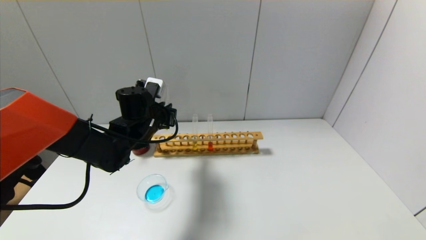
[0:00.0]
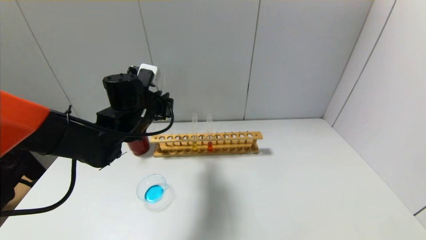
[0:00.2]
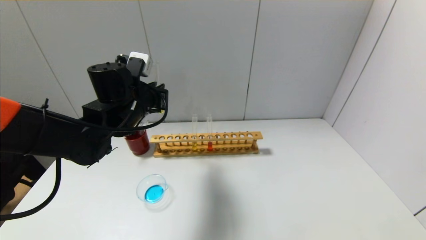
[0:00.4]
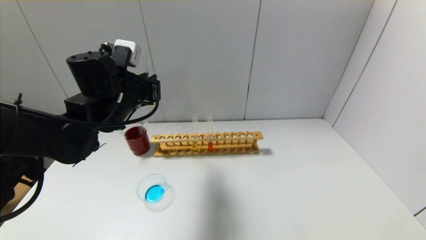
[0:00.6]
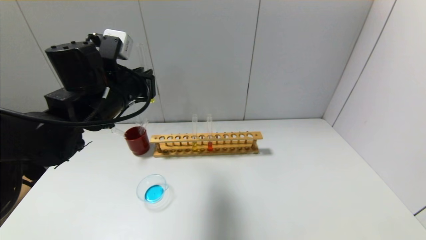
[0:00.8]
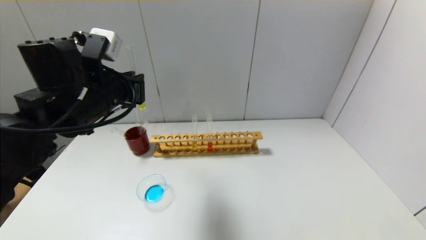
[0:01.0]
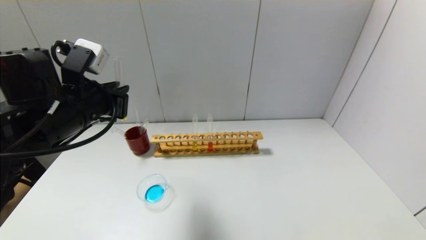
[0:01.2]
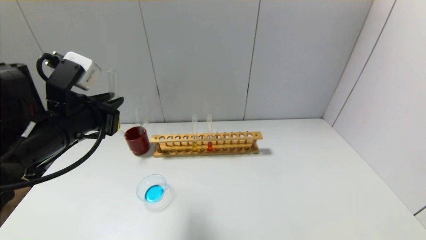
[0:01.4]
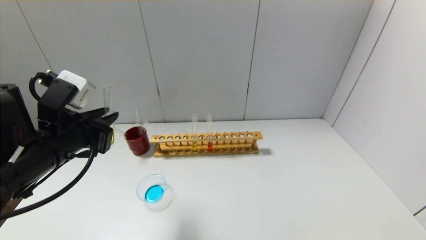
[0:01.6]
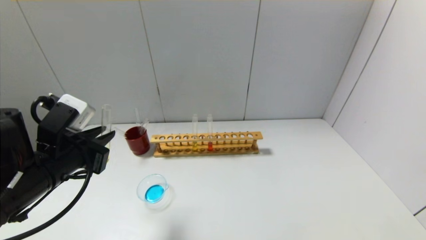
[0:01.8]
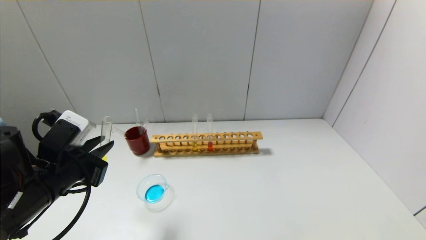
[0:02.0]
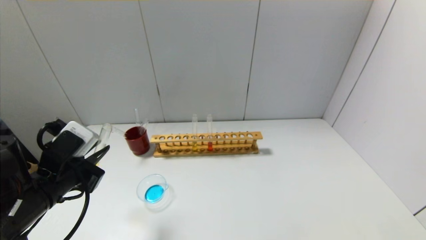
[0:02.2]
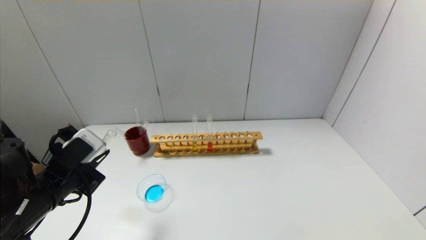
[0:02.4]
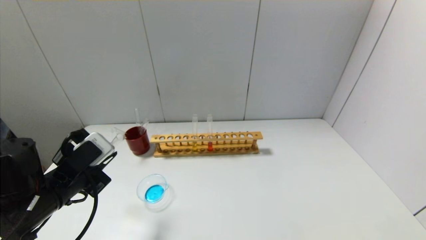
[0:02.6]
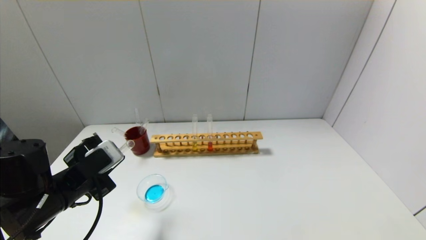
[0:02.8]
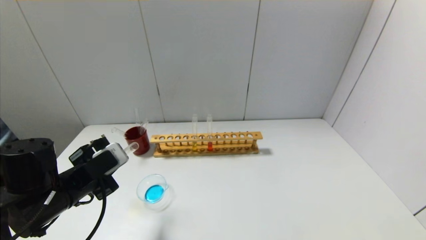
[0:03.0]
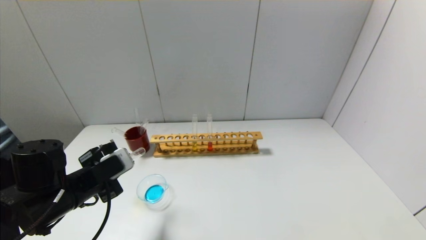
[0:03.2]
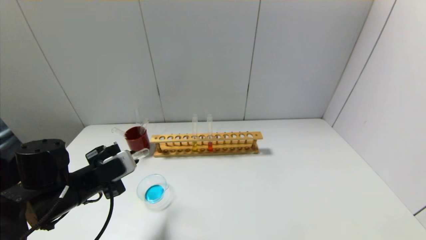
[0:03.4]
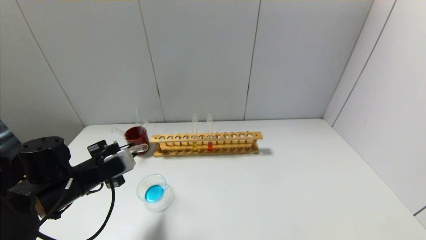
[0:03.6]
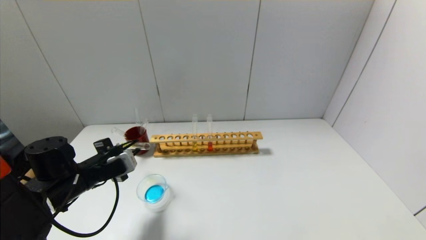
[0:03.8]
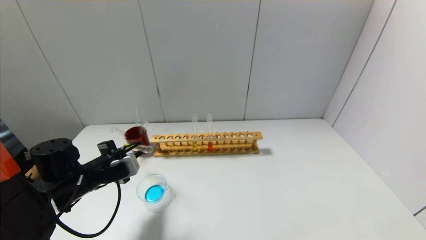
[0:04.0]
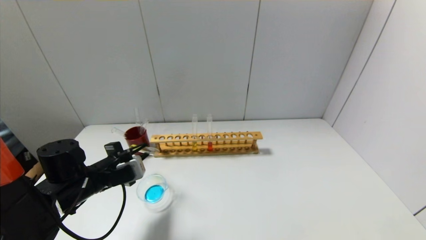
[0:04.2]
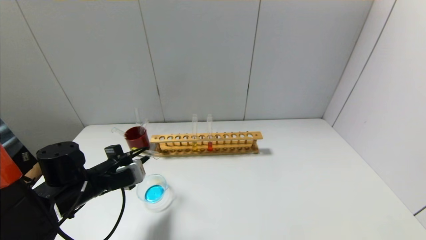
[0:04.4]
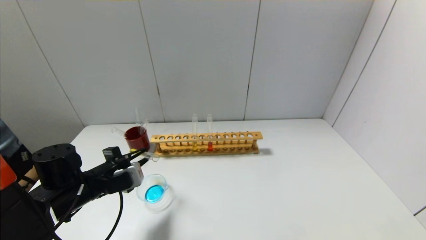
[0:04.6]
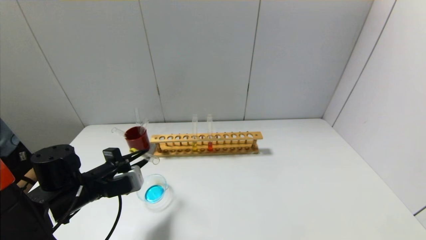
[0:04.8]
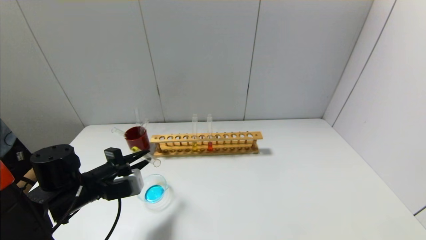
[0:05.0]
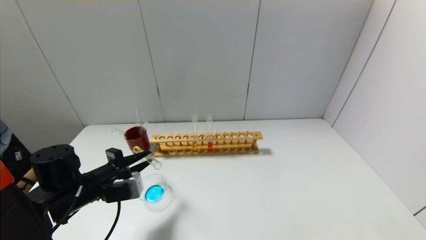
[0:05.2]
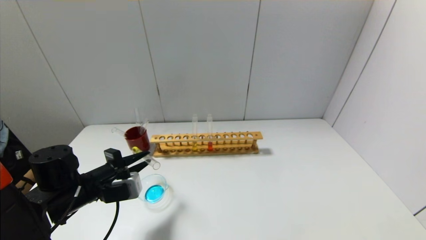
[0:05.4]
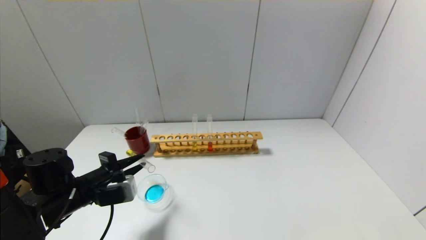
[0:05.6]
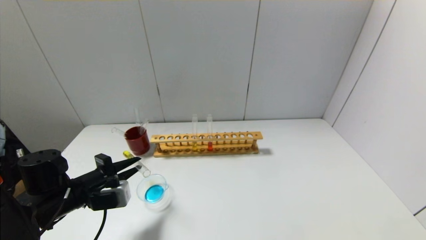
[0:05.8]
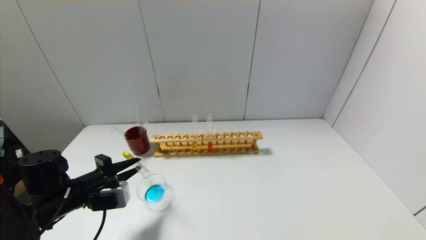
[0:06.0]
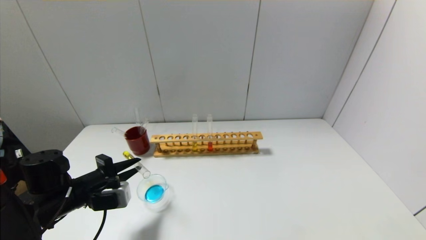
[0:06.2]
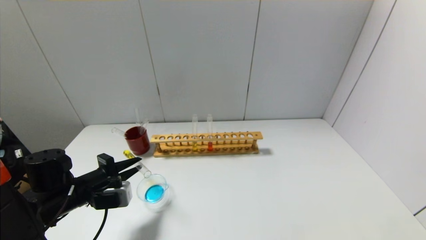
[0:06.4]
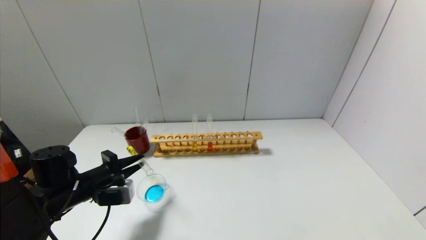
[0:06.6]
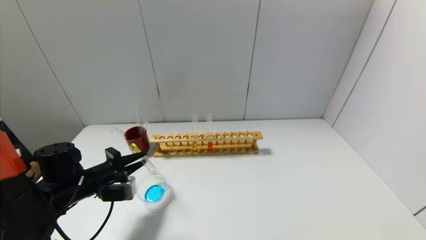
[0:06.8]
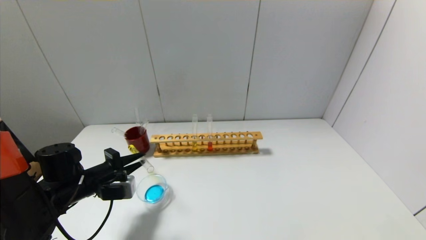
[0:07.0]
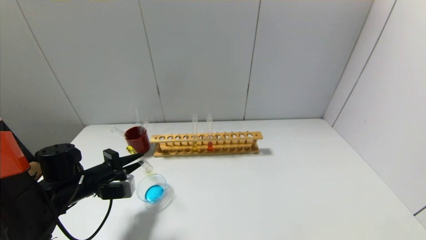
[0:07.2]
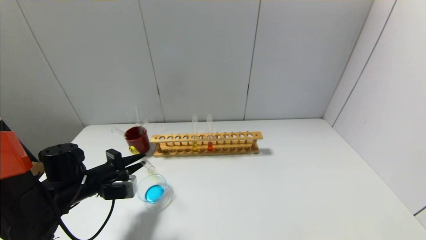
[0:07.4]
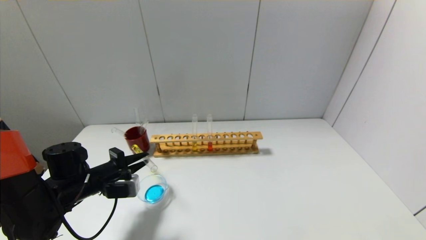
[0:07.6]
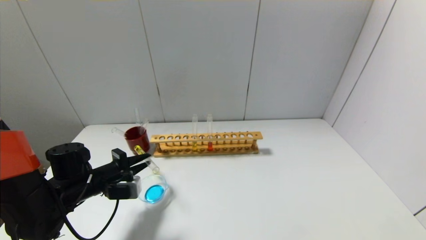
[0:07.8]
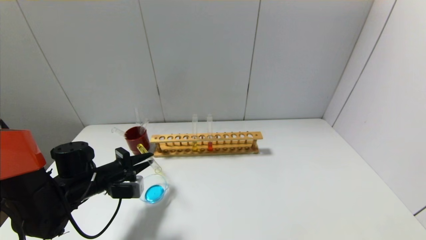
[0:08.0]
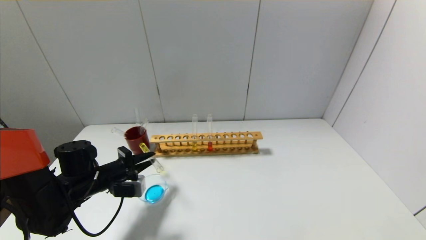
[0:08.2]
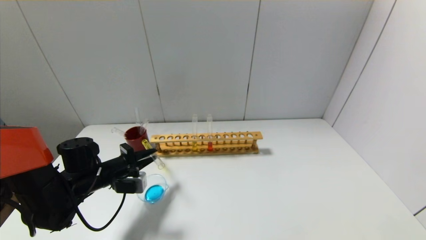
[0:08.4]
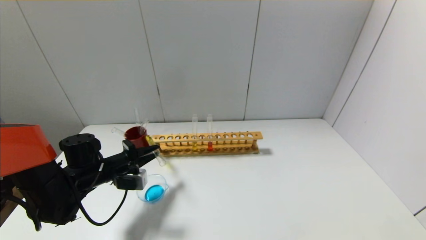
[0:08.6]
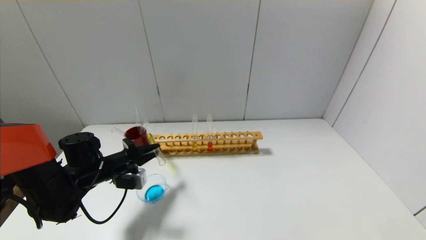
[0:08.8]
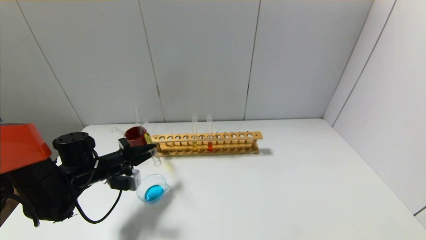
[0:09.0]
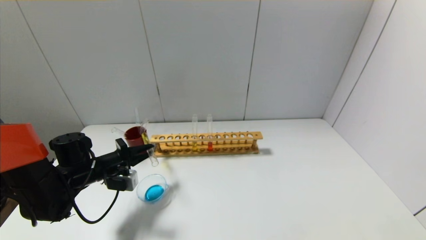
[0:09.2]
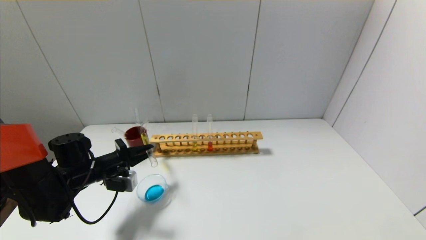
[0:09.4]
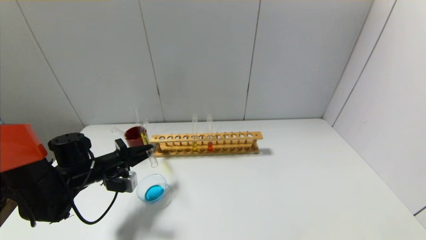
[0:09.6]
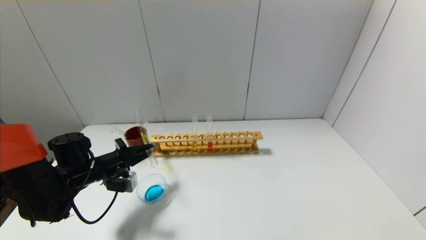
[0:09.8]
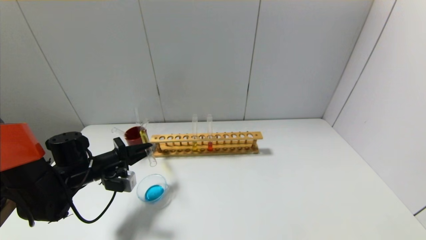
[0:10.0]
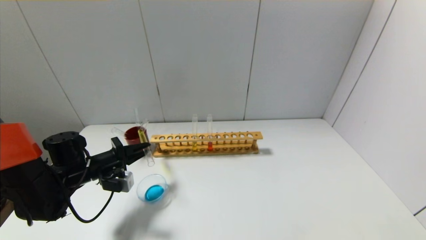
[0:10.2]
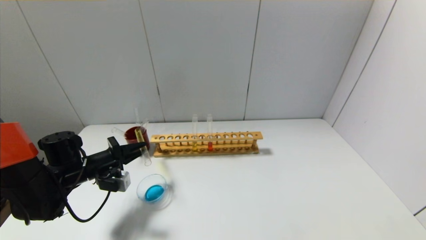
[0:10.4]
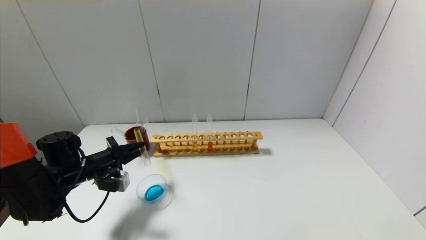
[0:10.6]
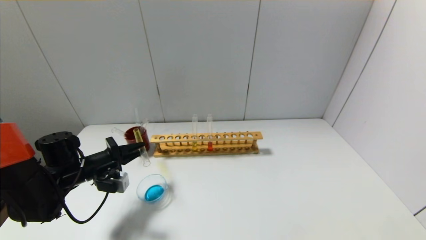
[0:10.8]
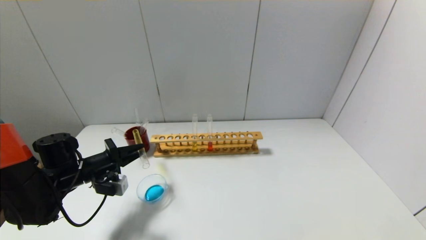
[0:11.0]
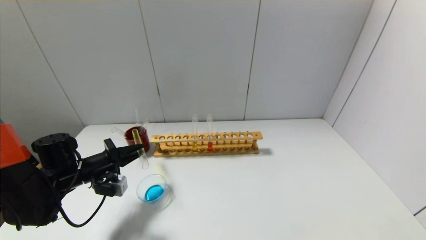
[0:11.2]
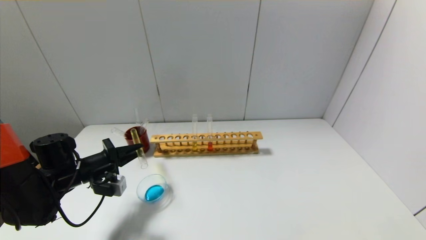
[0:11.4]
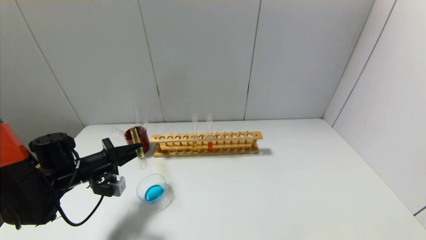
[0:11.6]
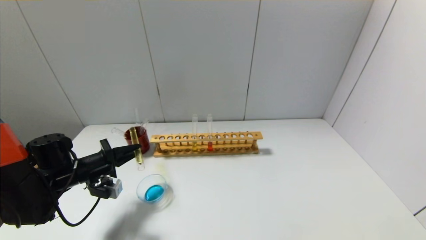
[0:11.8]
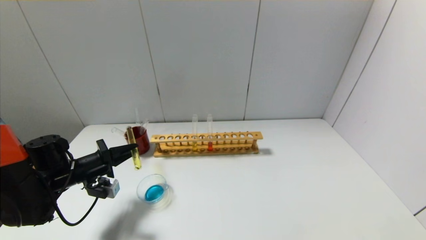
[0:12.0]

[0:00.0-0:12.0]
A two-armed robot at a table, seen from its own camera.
0:00.0 to 0:01.6: The left gripper travels backward and to the left by some 20 cm.
0:01.6 to 0:03.0: The left gripper shifts about 10 cm downward.
0:03.0 to 0:04.4: The left gripper moves approximately 5 cm.
0:04.4 to 0:07.6: There are only small adjustments of the grippers.
0:07.6 to 0:10.4: The grippers make only small movements.
0:10.4 to 0:12.0: The grippers make only small movements.

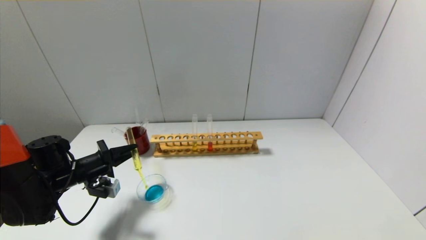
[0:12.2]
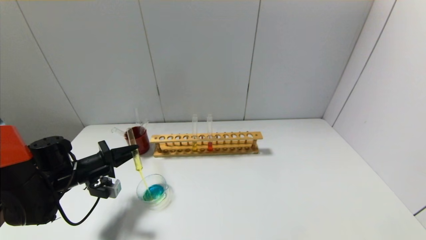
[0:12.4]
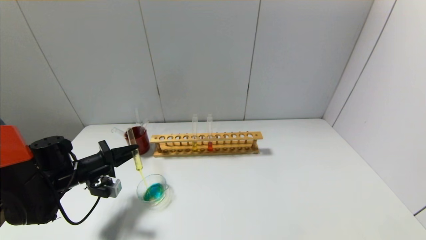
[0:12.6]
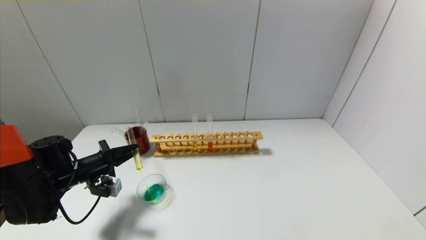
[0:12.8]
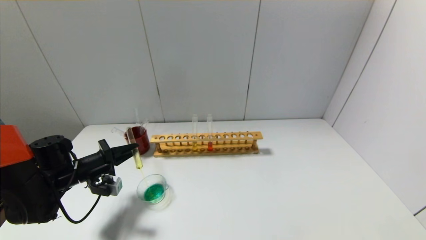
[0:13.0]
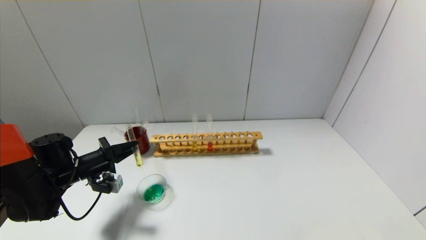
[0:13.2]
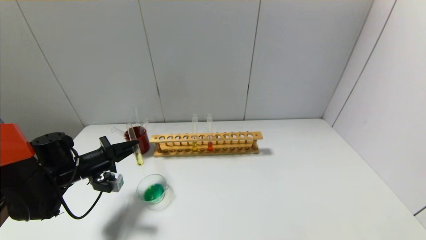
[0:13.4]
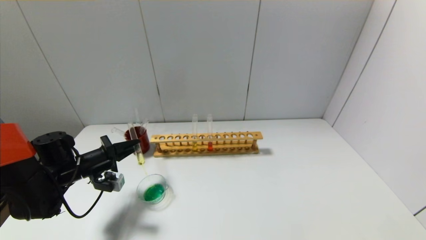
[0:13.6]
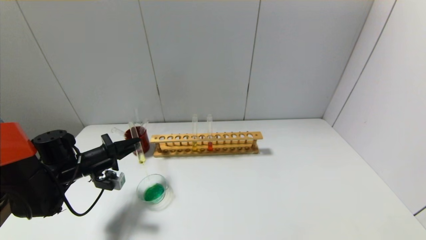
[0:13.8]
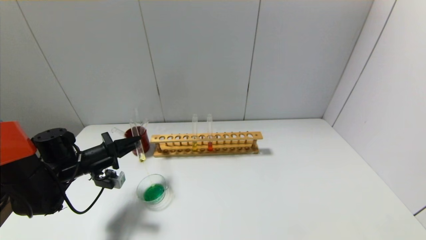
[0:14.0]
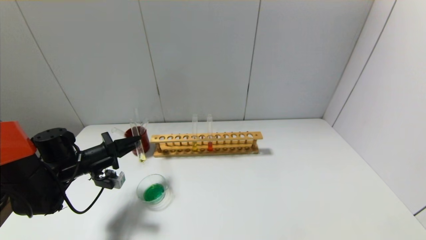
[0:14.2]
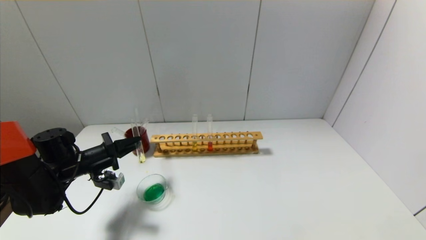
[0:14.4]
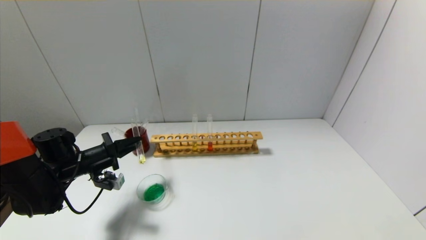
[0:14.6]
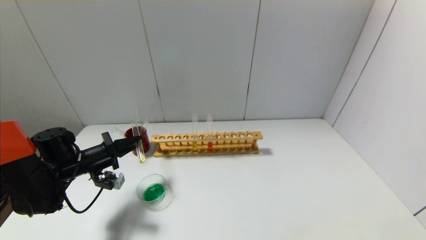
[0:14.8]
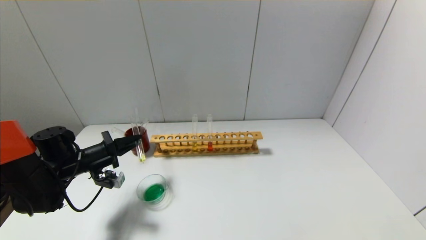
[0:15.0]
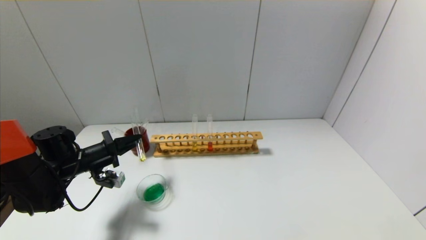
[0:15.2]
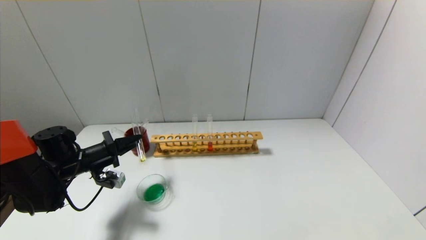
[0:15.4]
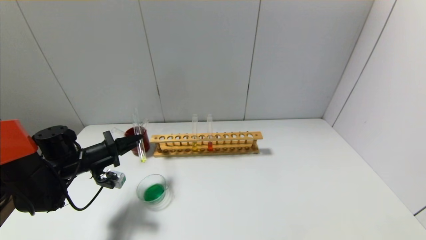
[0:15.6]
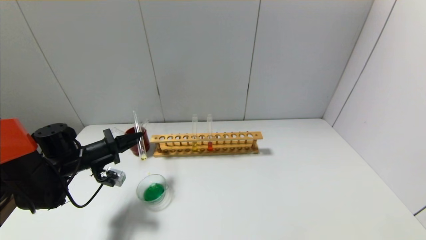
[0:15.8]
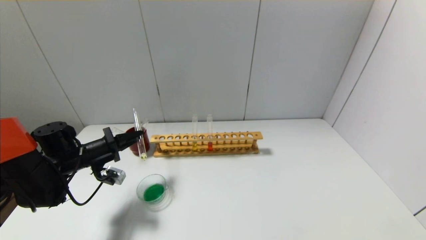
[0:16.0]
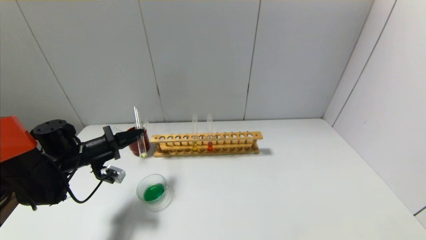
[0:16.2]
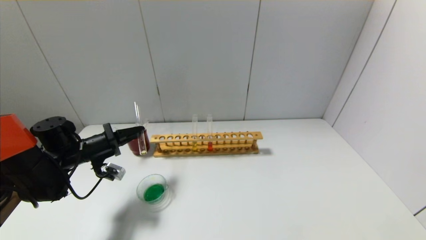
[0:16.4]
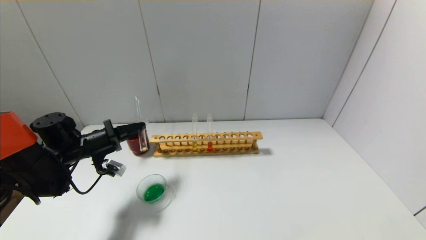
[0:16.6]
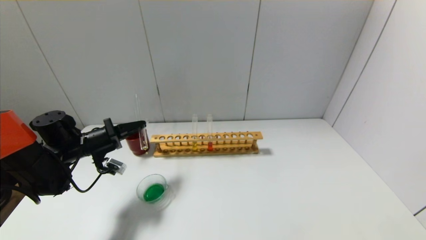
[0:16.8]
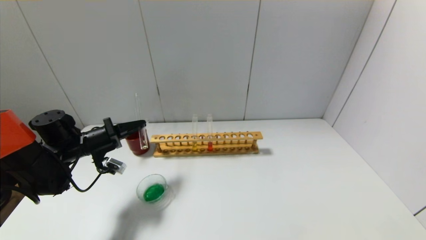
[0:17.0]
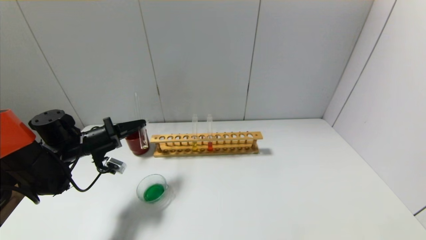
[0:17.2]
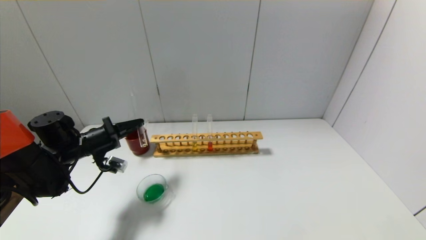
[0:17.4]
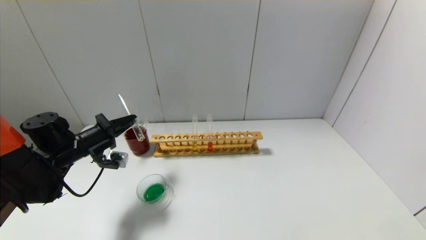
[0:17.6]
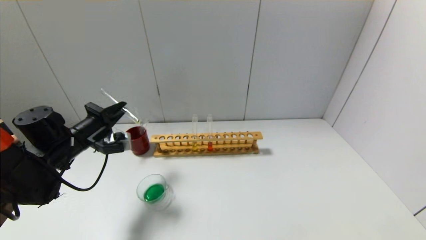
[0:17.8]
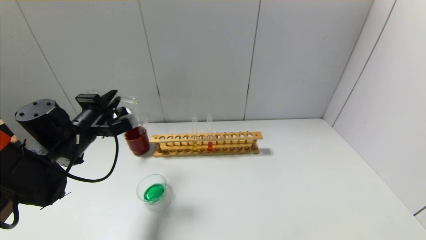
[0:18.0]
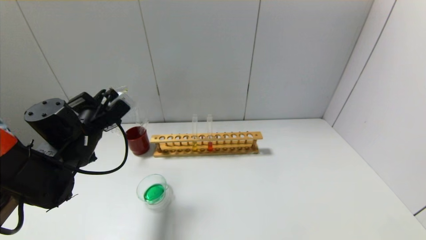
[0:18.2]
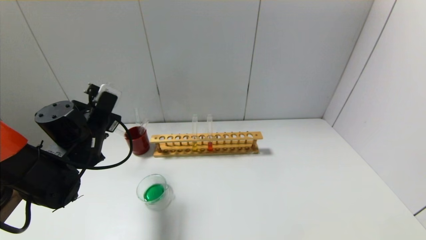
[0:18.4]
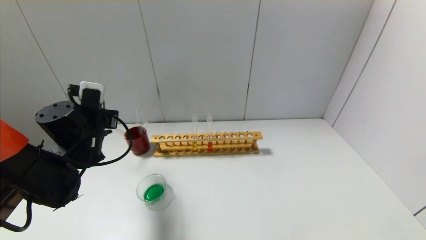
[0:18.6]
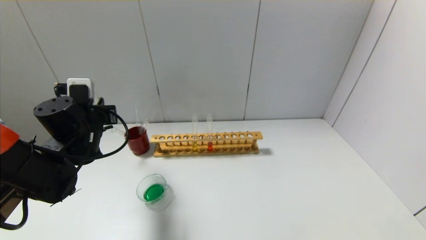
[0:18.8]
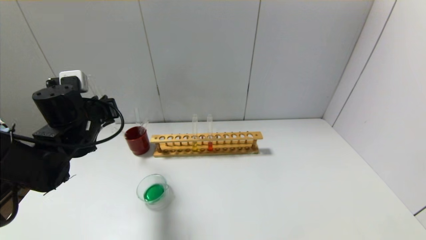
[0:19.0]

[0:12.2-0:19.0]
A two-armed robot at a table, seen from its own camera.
Step, 0:12.2 to 0:17.6: Pour the yellow reagent into the graduated cylinder with the left gripper.
0:12.2 to 0:13.6: Both grippers stay about where they are.
0:13.6 to 0:16.2: The grippers stay close to where they were, moving slightly.
0:16.2 to 0:17.6: The grippers stay close to where they were, moving slightly.
0:17.6 to 0:19.0: The left gripper shifts approximately 10 cm upward and to the right.
